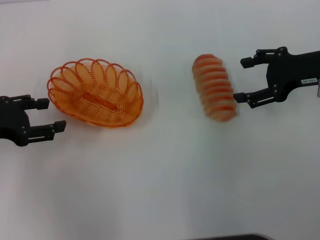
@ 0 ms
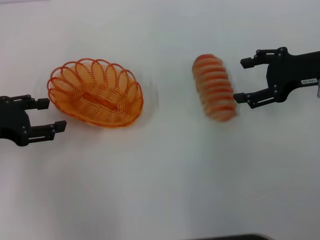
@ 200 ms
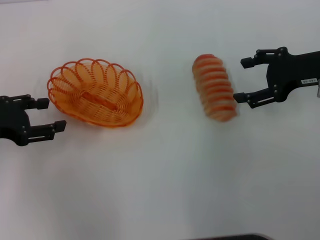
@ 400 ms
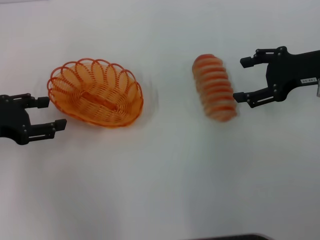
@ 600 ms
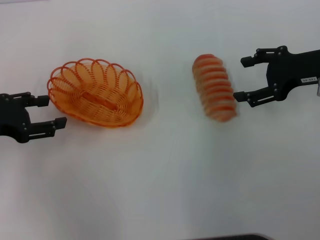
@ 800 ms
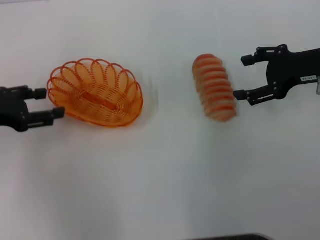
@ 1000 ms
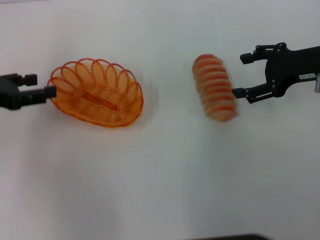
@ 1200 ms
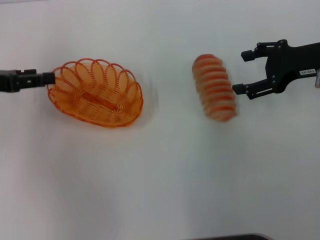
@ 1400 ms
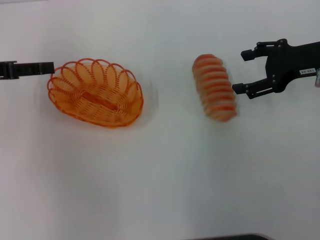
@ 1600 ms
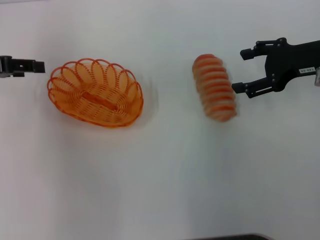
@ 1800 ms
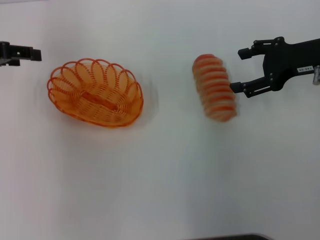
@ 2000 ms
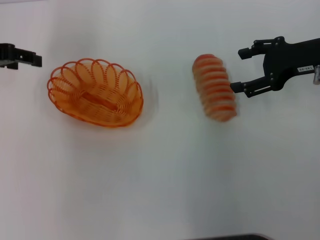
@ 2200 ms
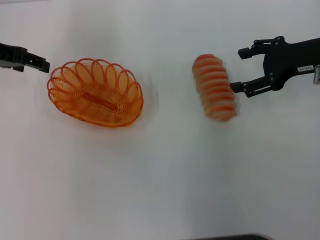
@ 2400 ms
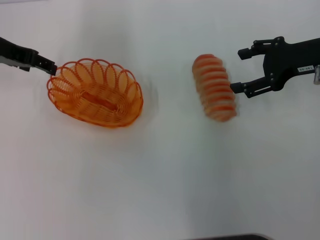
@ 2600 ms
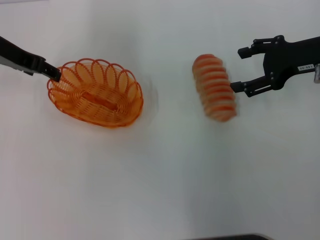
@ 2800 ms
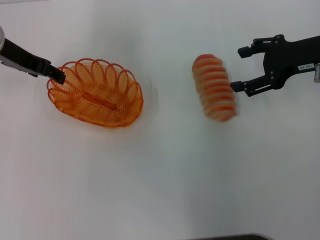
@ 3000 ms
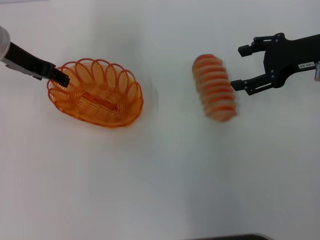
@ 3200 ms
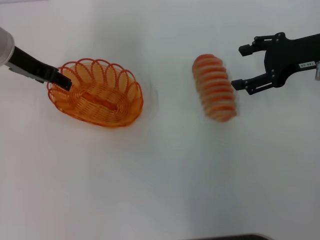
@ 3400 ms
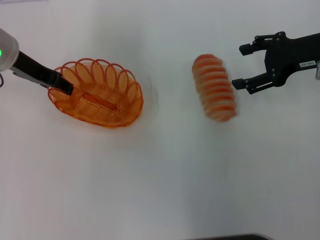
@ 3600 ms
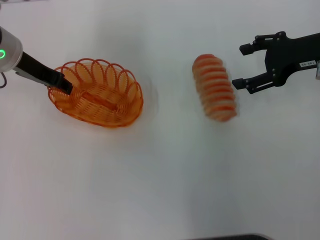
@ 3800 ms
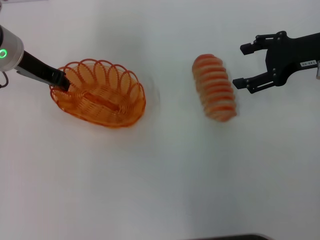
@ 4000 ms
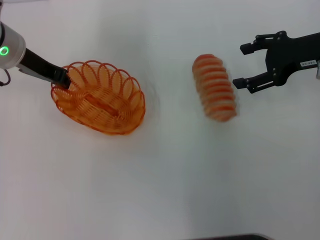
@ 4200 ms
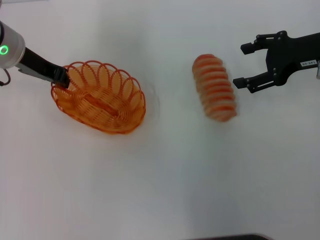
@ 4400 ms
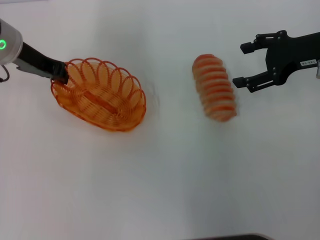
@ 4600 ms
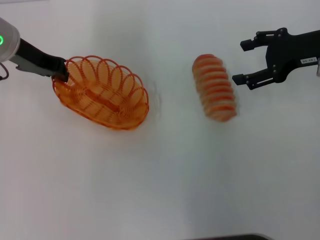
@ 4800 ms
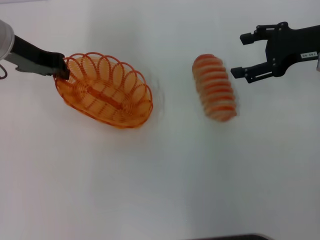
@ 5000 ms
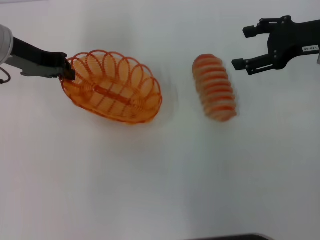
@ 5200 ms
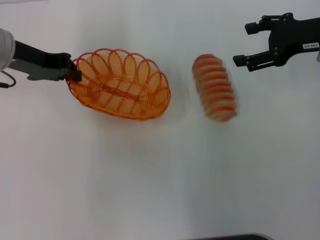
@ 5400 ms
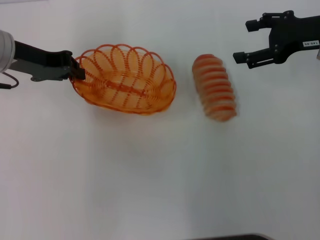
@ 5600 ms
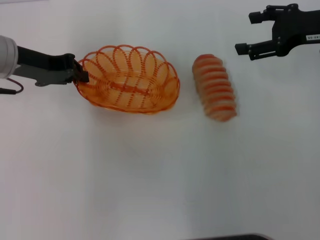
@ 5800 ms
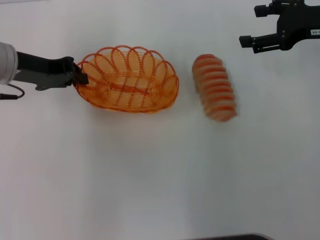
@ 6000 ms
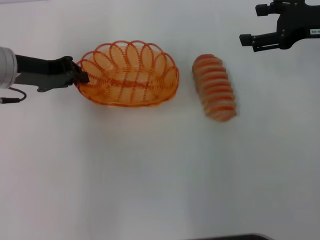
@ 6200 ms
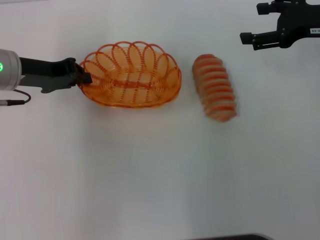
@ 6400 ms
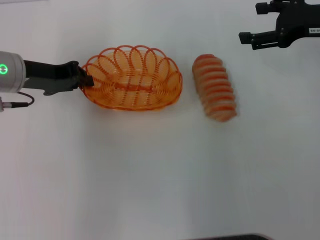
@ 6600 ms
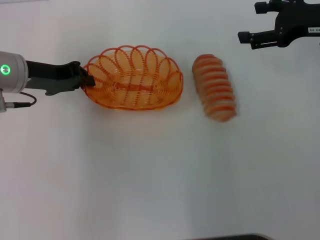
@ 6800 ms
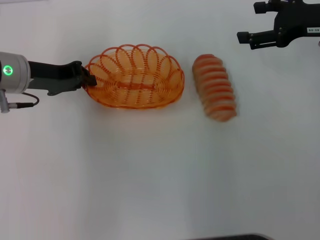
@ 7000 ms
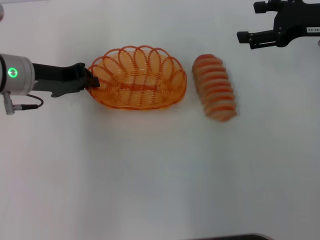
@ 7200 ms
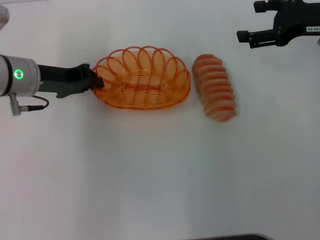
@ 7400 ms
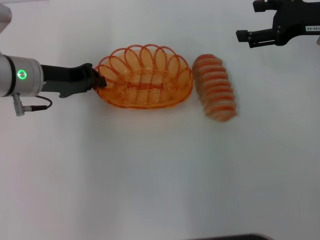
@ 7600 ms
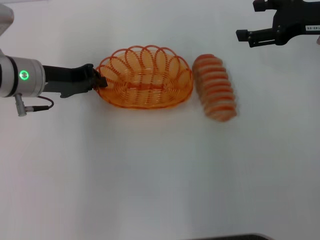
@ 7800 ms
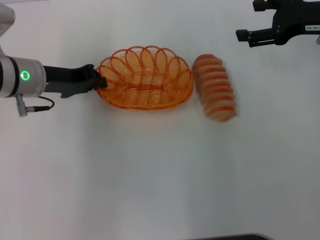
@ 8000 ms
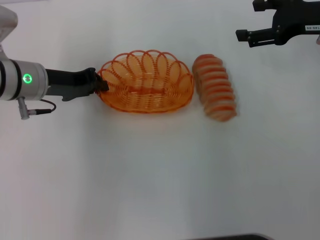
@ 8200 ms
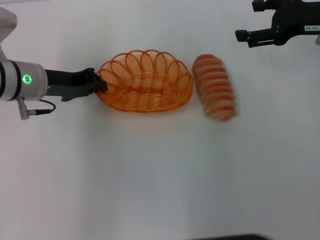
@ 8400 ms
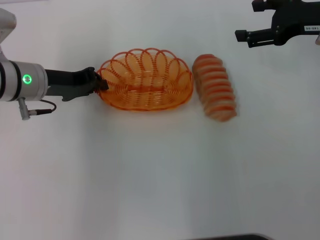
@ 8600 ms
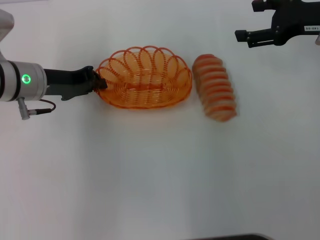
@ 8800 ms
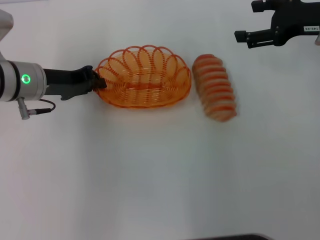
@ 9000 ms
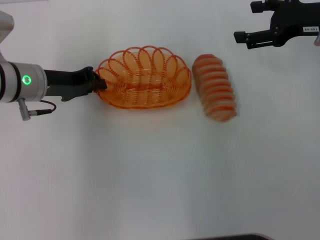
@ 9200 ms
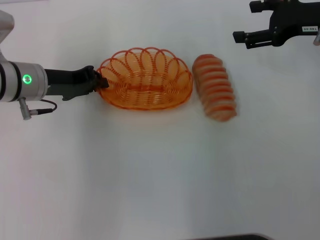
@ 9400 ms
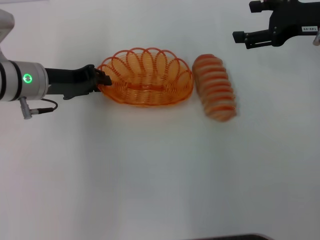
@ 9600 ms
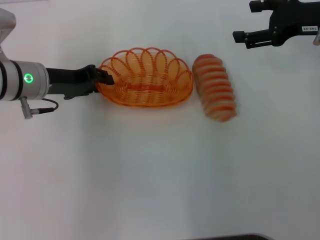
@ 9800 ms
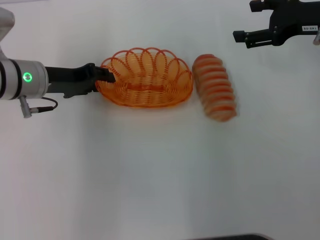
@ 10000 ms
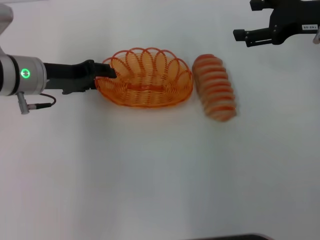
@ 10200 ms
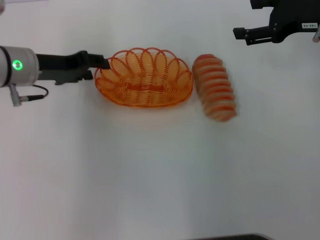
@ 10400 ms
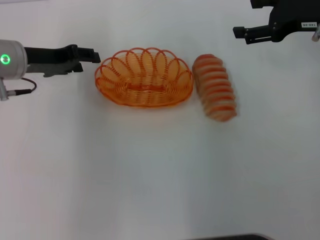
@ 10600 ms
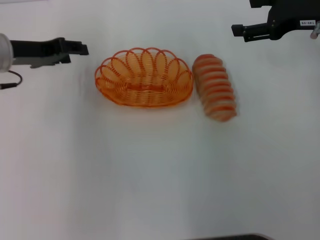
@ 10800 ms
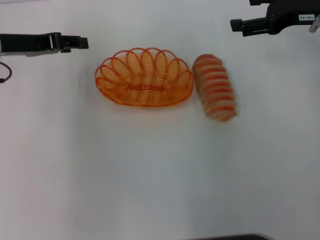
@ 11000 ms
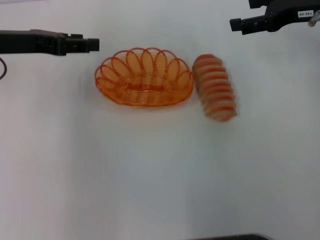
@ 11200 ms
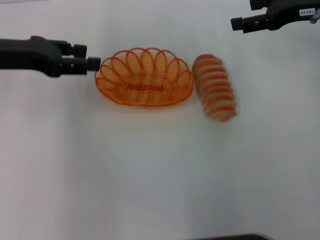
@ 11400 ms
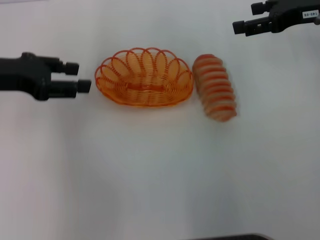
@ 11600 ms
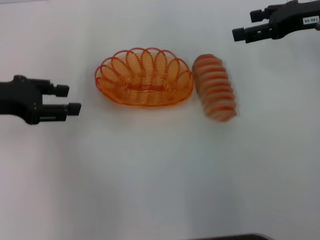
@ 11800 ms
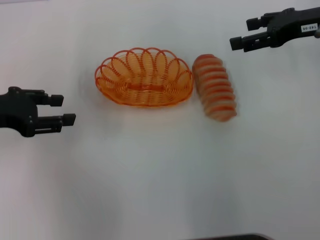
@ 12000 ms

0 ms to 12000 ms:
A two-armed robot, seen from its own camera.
Step, 0 ms to 5000 ms: Pick up the basket with the left gripper.
Step, 5400 ms to 10800 ms: Place the basket in the center of view with the left gripper.
0 ms to 1600 ms: The left gripper heads forward, covering approximately 5 cm.
1600 ms to 3000 ms: The left gripper travels to the right and forward by about 10 cm.
3000 ms to 4400 ms: The left gripper closes.
6000 ms to 7600 ms: There are only small adjustments of the grippers.
7600 ms to 9000 ms: Both grippers stay about where they are.
9000 ms to 10400 ms: The left gripper opens up.
10400 ms to 12000 ms: The left gripper heads to the left and backward, covering some 10 cm.

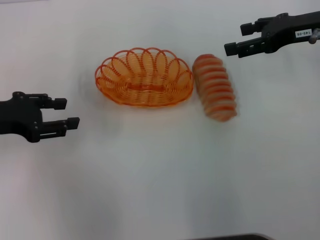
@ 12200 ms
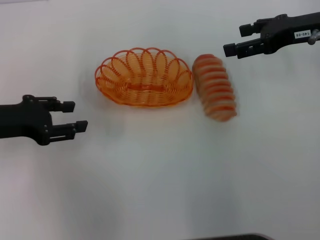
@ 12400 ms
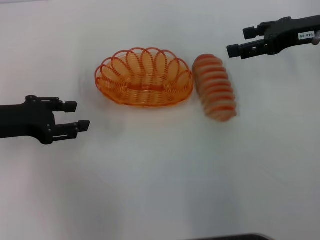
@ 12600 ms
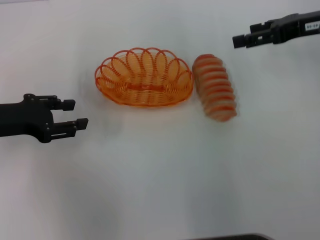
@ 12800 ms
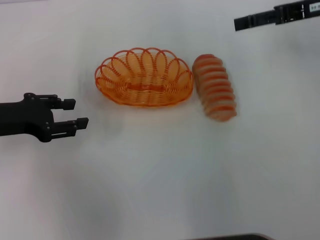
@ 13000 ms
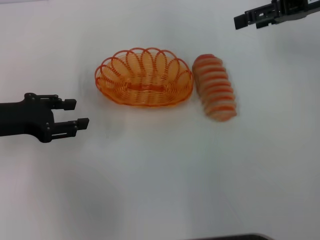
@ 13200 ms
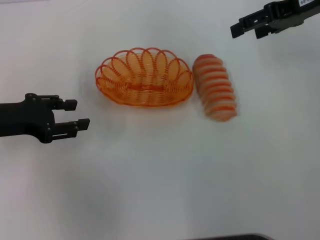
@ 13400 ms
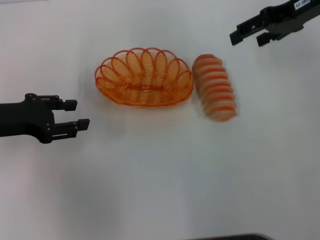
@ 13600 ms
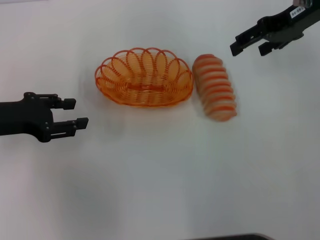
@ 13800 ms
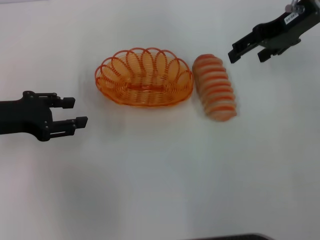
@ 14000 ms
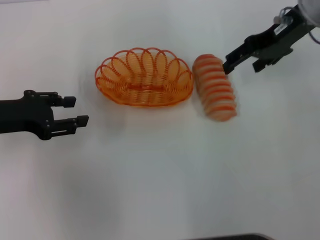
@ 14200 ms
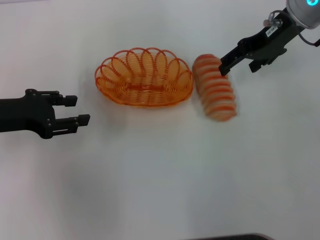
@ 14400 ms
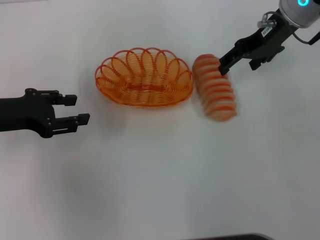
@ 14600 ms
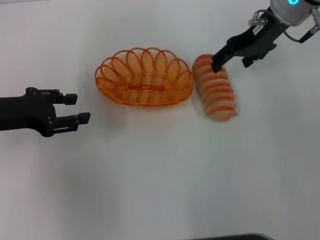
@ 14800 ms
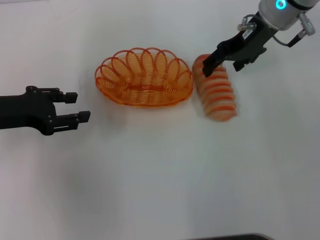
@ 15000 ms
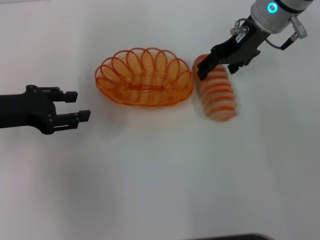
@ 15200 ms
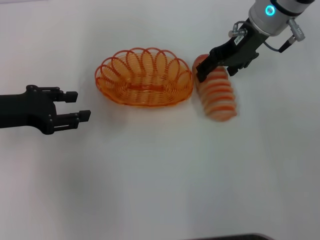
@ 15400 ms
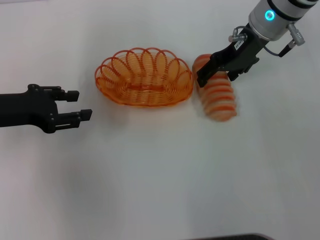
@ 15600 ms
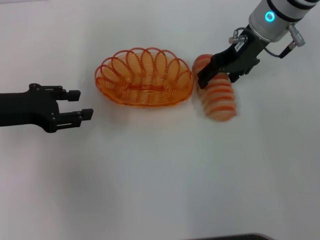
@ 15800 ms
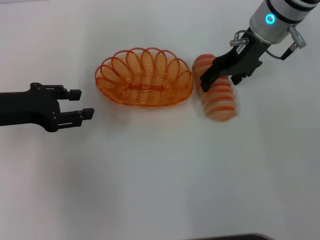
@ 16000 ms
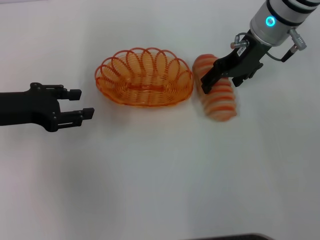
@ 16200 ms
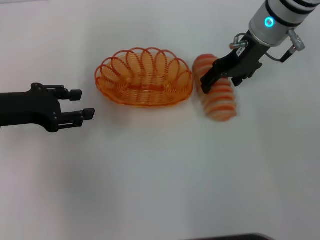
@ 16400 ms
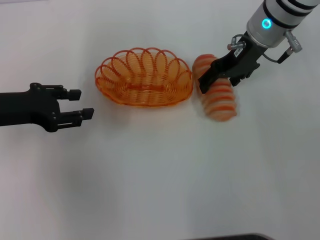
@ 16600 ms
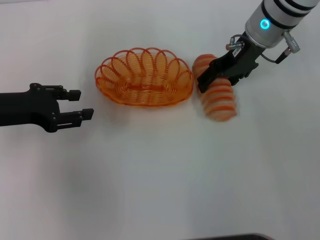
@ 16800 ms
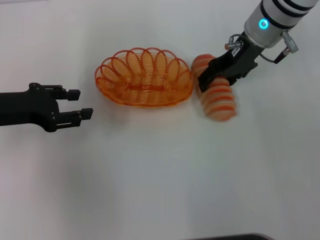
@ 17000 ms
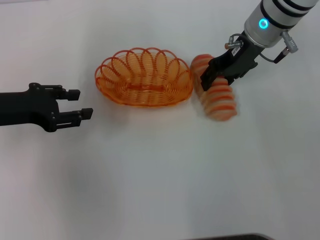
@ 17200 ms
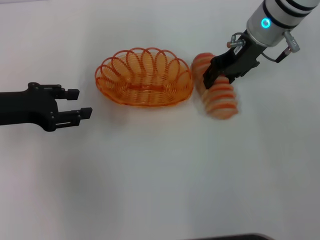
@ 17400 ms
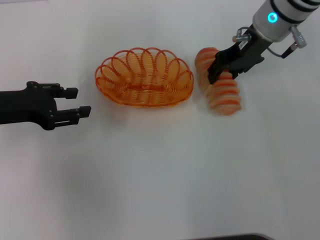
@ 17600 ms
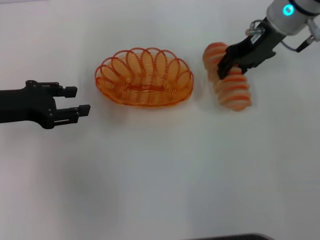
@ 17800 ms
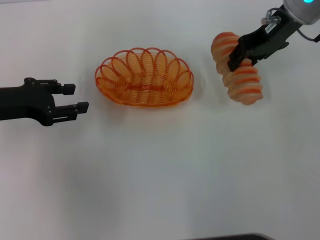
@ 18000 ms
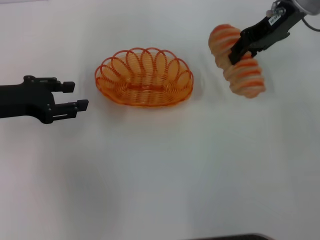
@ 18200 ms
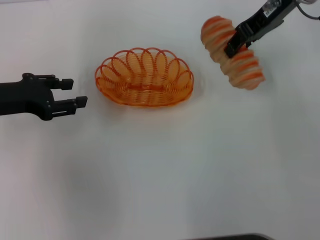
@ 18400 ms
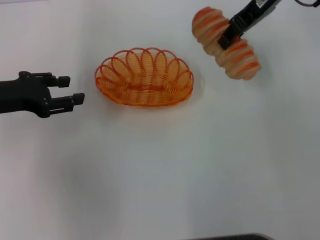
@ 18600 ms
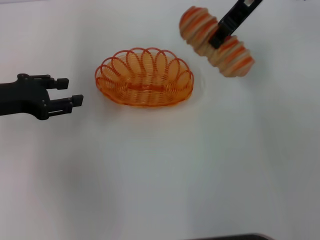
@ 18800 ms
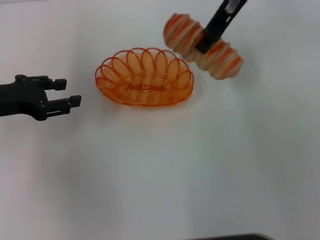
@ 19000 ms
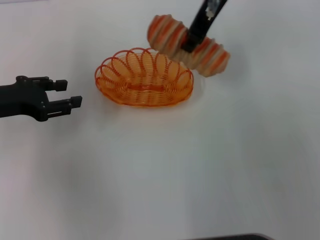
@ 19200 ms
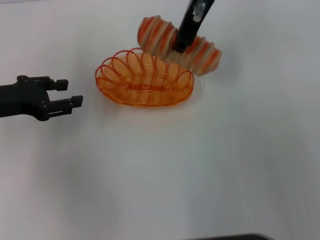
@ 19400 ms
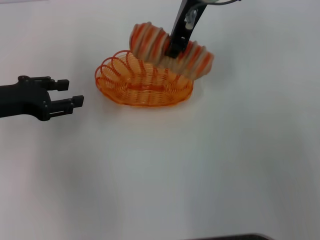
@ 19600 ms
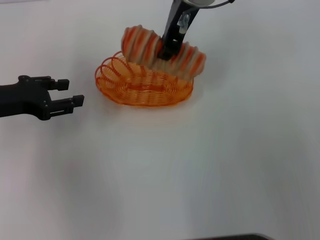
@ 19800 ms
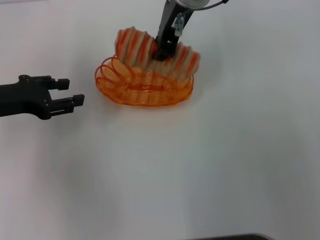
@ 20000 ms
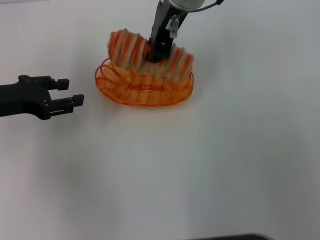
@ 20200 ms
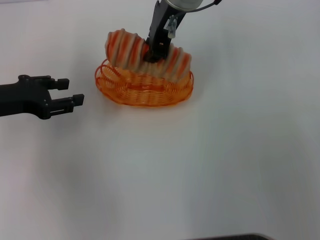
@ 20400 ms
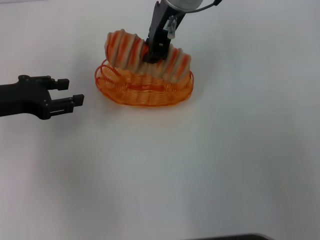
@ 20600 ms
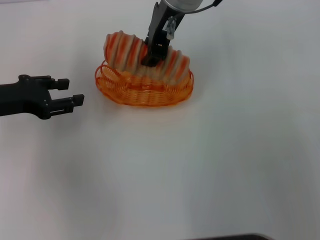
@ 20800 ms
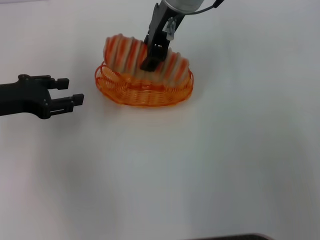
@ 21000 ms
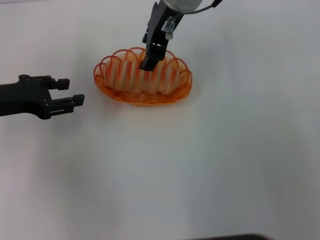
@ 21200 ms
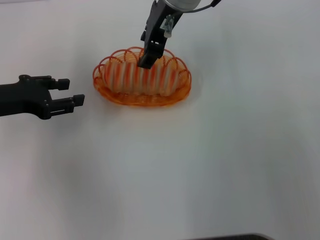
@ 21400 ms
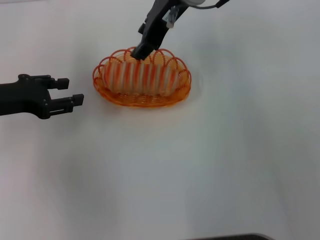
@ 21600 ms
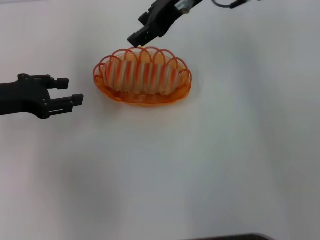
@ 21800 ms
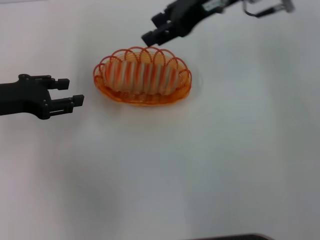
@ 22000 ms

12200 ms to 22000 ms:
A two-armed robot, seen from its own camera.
Step, 12200 ms to 17800 ms: Pick up the long bread with the right gripper.
12200 ms to 13600 ms: The right gripper heads upward, covering approximately 5 cm.
13600 ms to 15000 ms: The right gripper moves to the left, some 10 cm.
15000 ms to 16400 ms: The grippers move only a little.
16400 ms to 17800 ms: The right gripper closes up.
17800 ms to 19200 ms: The right gripper moves to the left and upward, about 10 cm, and closes its fingers.
19200 ms to 20600 ms: The right gripper is displaced to the left by approximately 5 cm.
20600 ms to 22000 ms: The right gripper heads to the right, covering roughly 10 cm, and opens.
